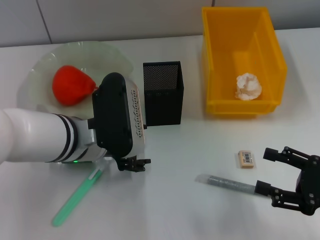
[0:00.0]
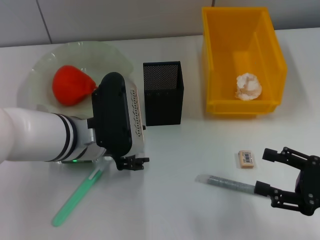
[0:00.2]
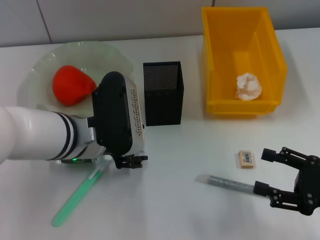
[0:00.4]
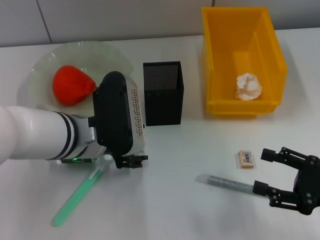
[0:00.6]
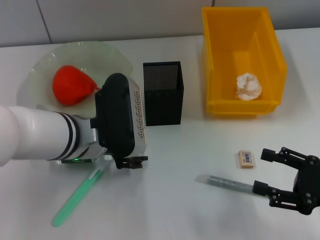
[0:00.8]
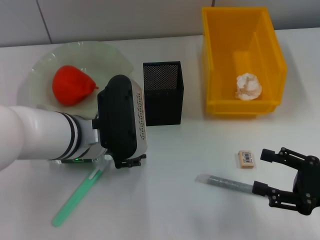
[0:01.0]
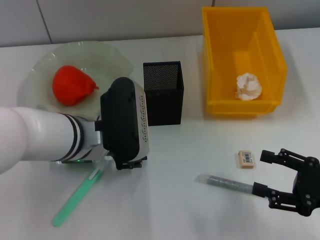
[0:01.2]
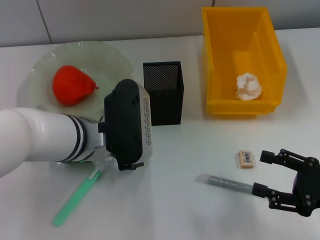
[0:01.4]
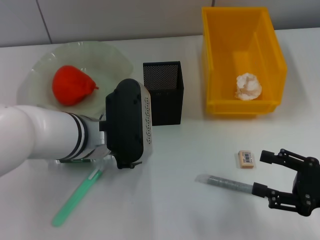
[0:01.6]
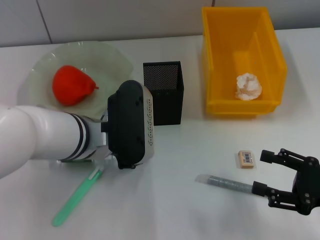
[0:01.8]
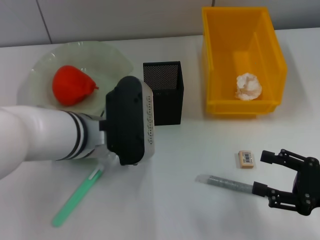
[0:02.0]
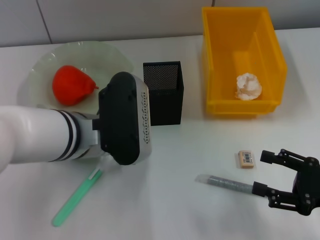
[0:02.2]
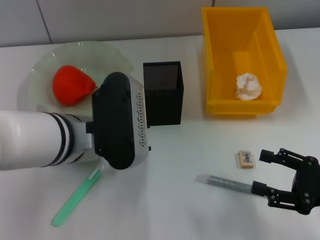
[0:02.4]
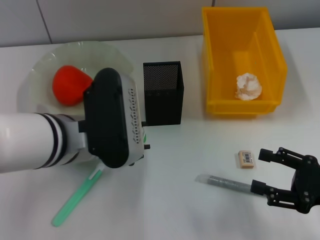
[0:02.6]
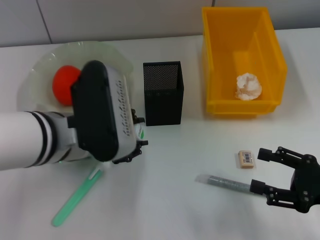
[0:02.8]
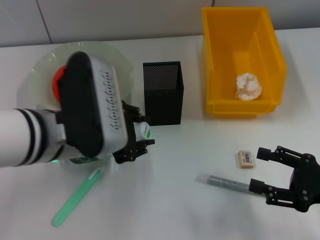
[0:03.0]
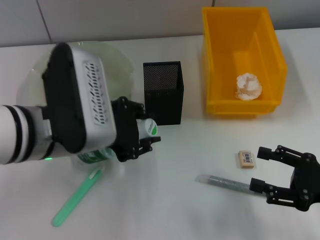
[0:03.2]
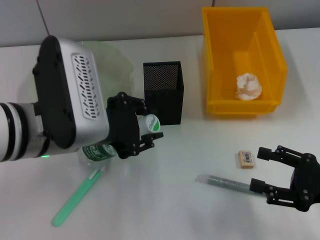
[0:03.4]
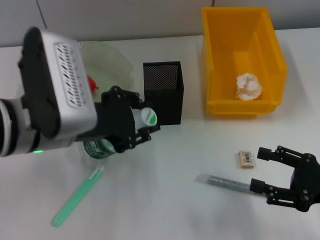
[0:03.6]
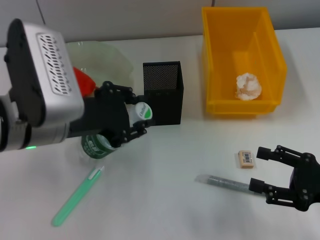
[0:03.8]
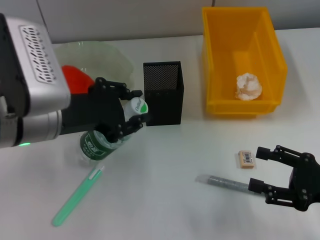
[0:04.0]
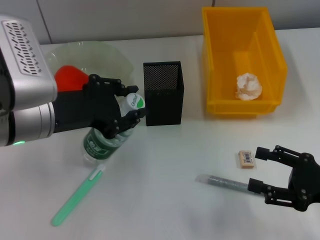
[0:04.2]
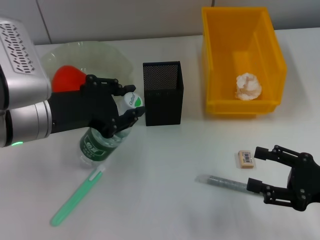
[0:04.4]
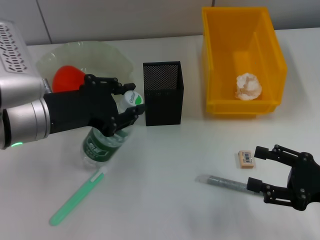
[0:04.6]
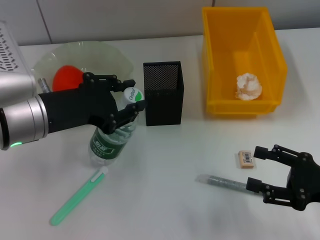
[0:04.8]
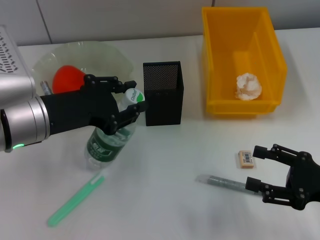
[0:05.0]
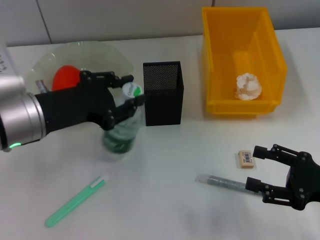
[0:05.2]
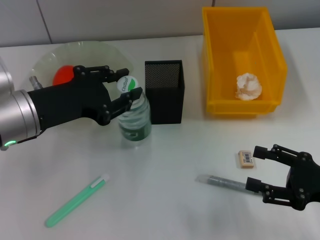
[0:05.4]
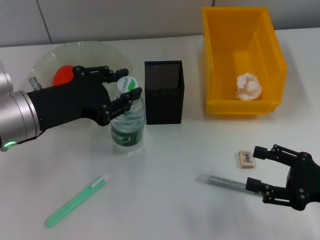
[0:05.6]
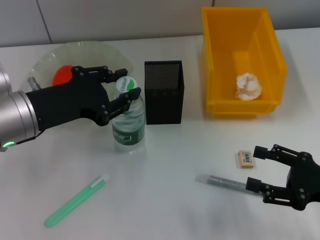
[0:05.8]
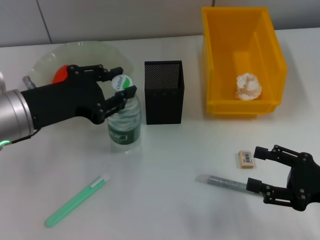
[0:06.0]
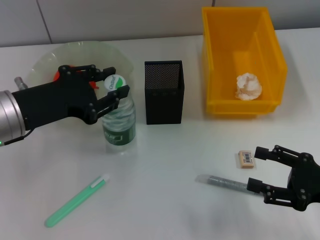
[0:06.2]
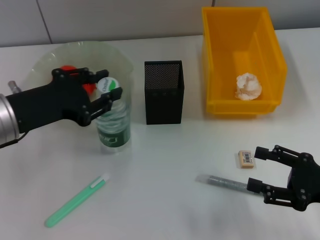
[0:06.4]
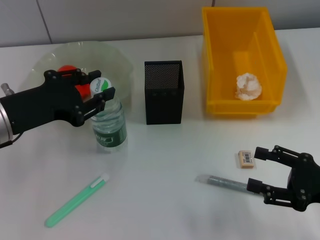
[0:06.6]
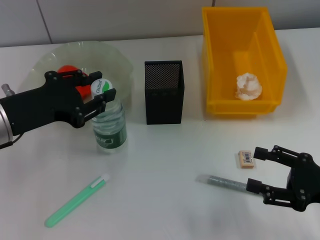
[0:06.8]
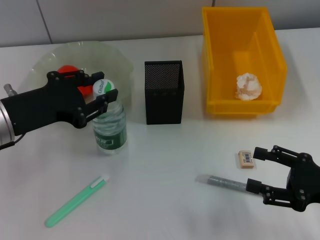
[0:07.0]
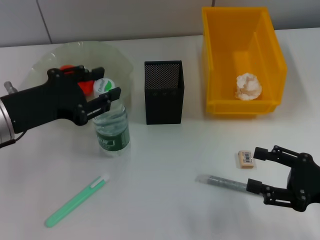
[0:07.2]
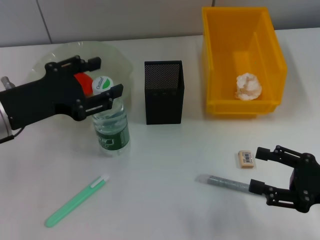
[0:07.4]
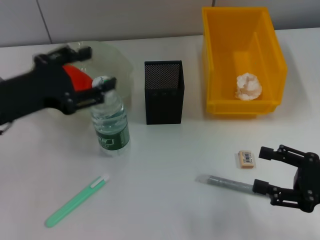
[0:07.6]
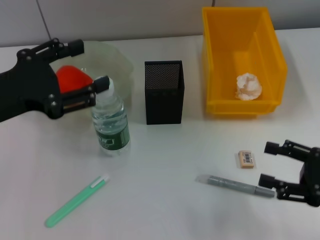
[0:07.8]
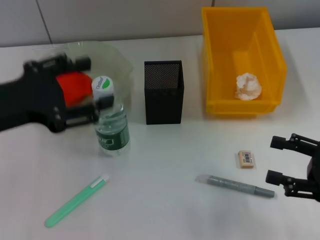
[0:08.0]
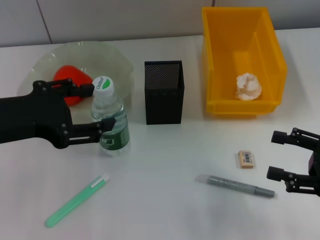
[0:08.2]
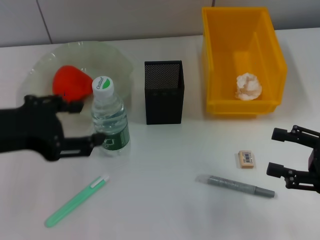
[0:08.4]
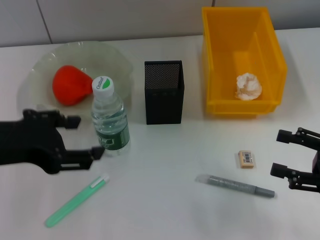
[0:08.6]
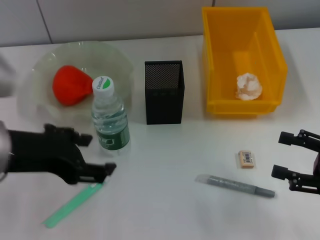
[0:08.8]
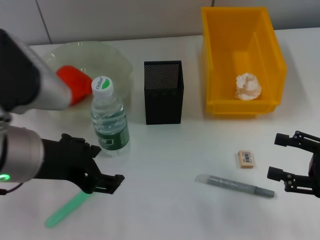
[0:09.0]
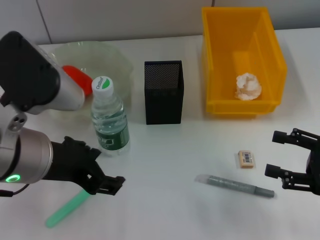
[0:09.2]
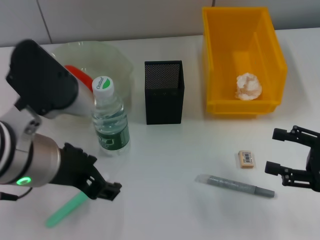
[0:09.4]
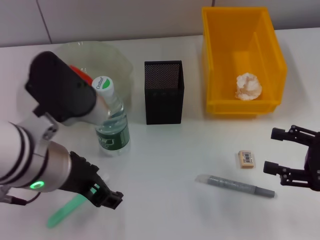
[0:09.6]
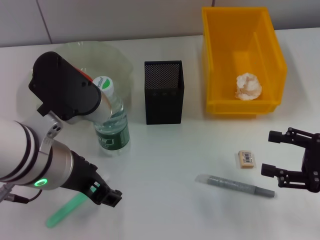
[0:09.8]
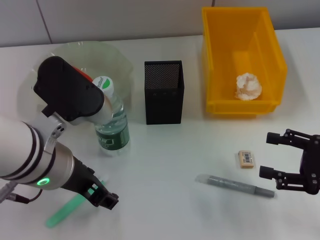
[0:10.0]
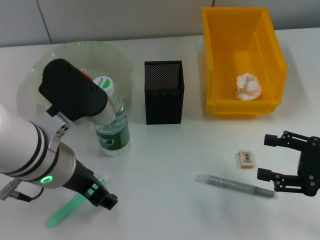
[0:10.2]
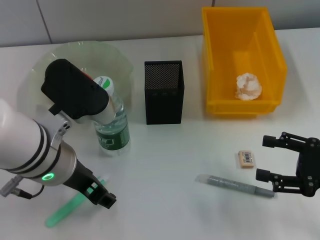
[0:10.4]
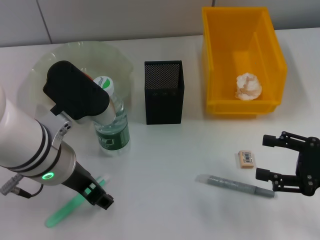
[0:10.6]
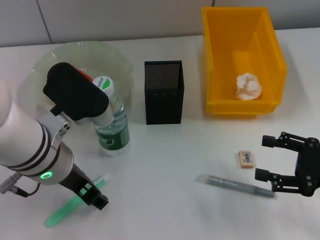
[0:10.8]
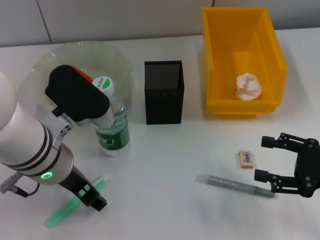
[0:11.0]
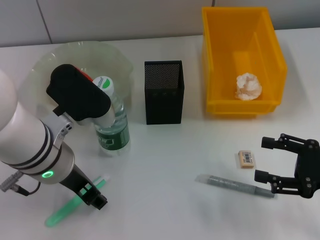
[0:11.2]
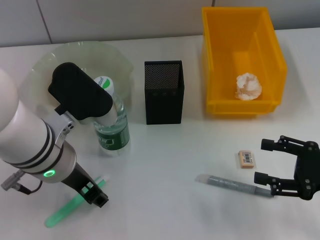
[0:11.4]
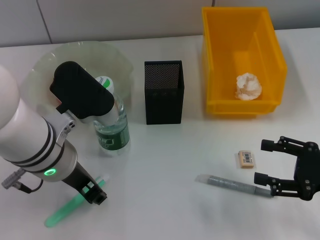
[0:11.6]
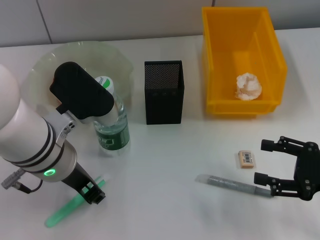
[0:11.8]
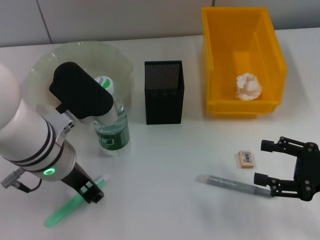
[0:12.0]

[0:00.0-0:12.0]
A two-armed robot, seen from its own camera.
Step, 0:01.8 to 0:07.2: Place the water bottle on the table with the left hand.
0:00.0 to 0:01.6: The left gripper closes its fingers.
0:01.6 to 0:03.0: The left gripper travels upward by approximately 5 cm.
0:03.0 to 0:04.4: The left gripper ends up about 5 cm from where it was.
0:04.4 to 0:06.0: The grippers make only small movements.
0:06.0 to 0:07.6: The left gripper opens.
0:07.6 to 0:09.0: The left gripper is displaced to the right by roughly 5 cm.
0:09.0 to 0:10.4: The left gripper shifts by some 5 cm.
0:10.4 to 0:12.0: The left gripper closes its fingers.

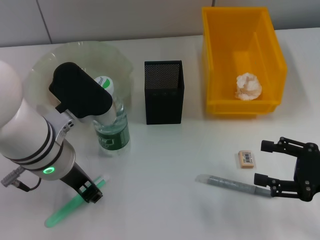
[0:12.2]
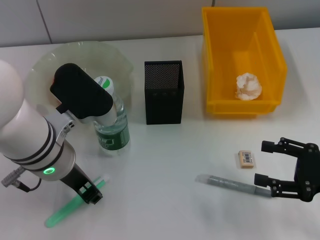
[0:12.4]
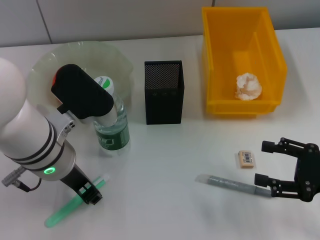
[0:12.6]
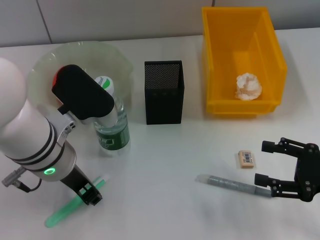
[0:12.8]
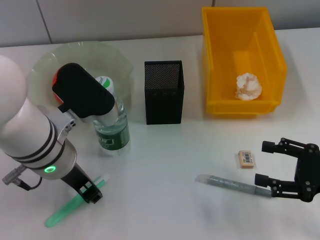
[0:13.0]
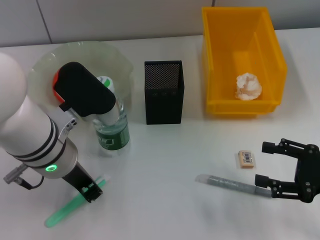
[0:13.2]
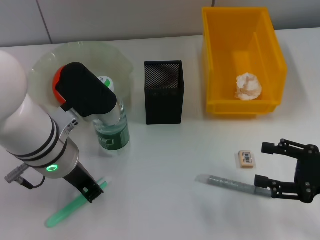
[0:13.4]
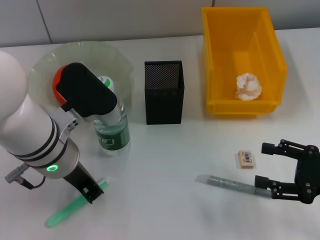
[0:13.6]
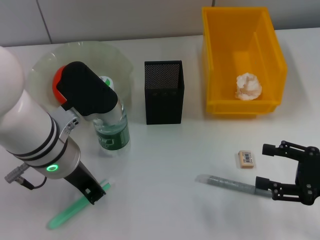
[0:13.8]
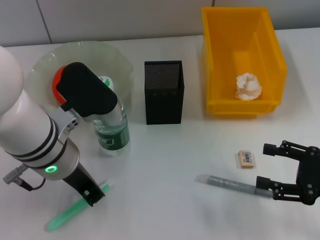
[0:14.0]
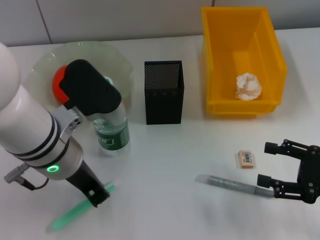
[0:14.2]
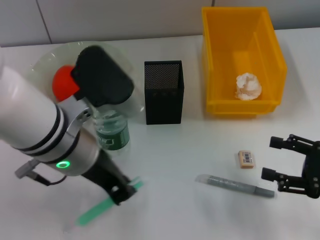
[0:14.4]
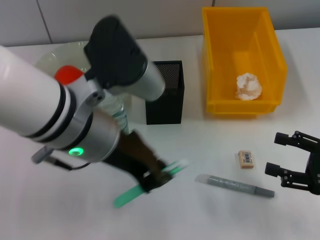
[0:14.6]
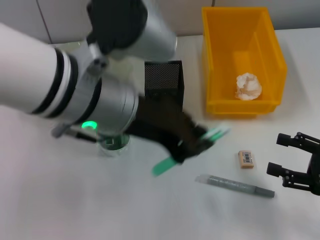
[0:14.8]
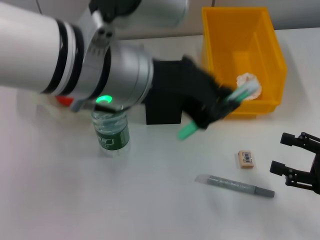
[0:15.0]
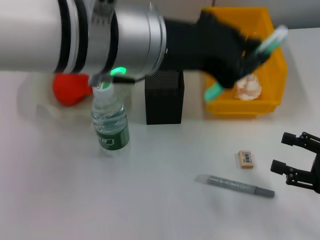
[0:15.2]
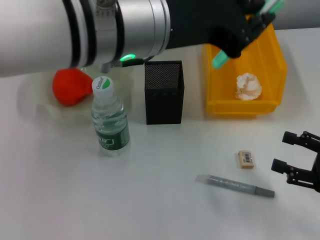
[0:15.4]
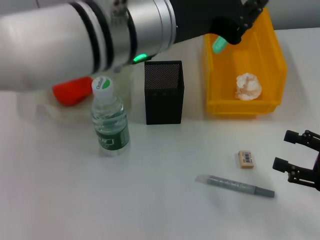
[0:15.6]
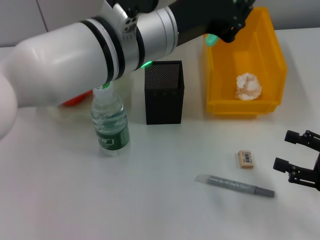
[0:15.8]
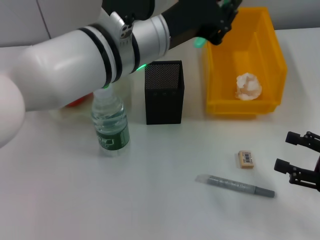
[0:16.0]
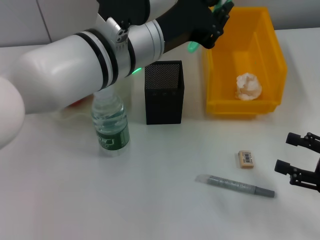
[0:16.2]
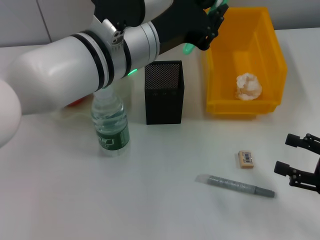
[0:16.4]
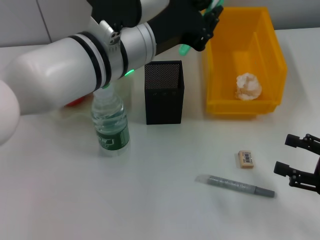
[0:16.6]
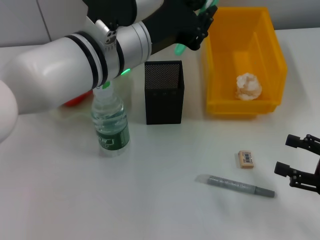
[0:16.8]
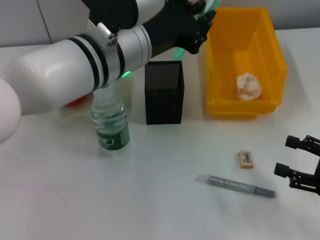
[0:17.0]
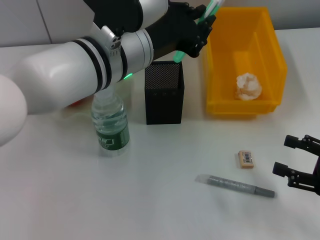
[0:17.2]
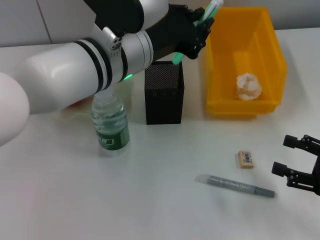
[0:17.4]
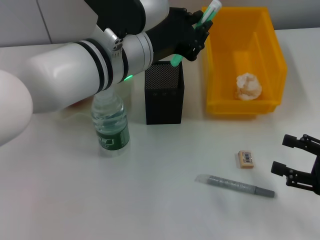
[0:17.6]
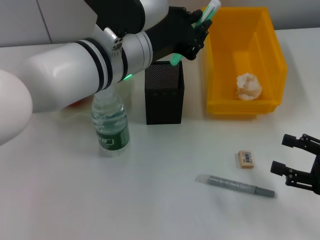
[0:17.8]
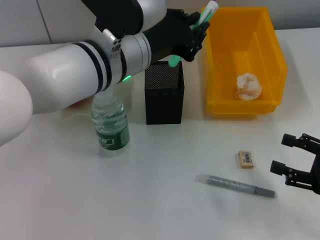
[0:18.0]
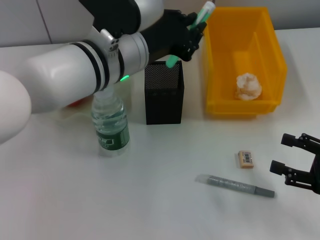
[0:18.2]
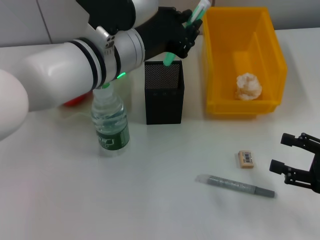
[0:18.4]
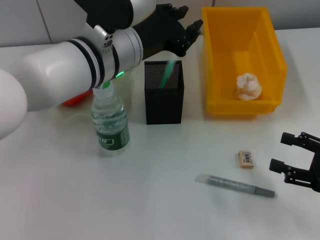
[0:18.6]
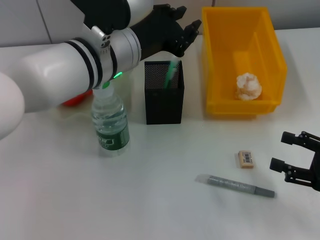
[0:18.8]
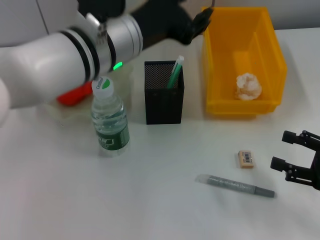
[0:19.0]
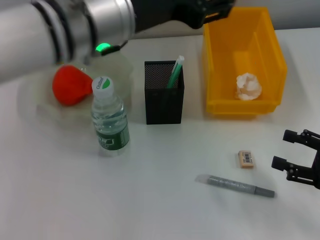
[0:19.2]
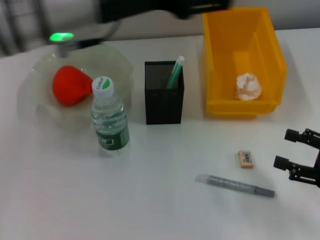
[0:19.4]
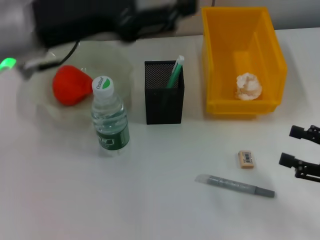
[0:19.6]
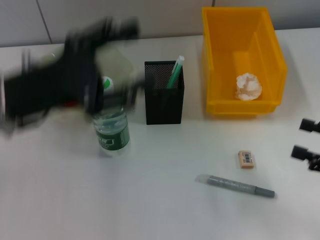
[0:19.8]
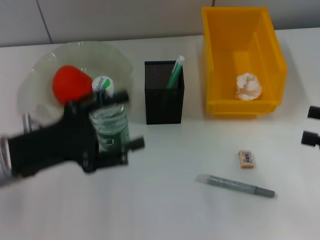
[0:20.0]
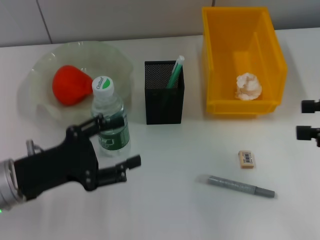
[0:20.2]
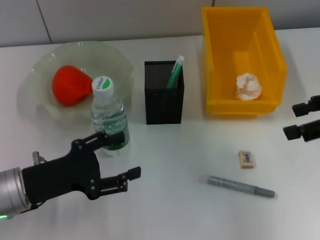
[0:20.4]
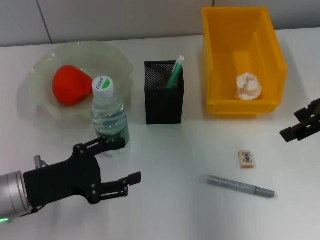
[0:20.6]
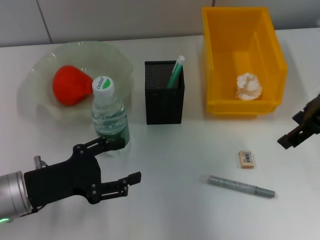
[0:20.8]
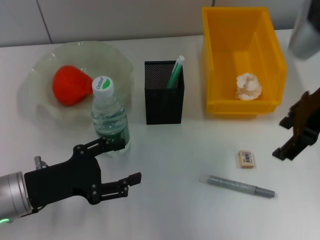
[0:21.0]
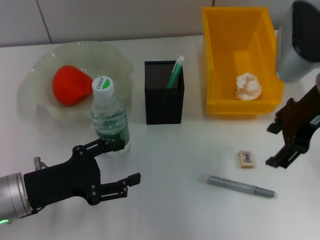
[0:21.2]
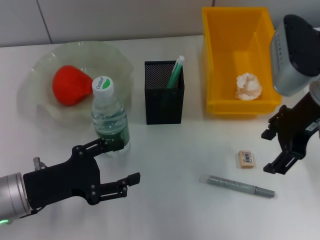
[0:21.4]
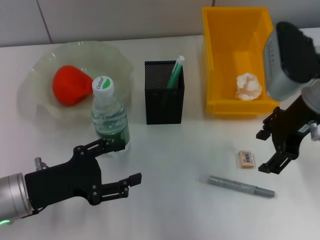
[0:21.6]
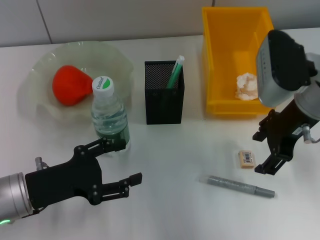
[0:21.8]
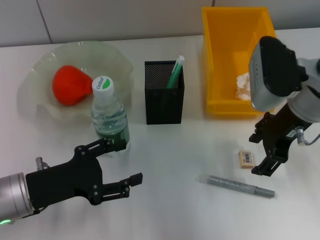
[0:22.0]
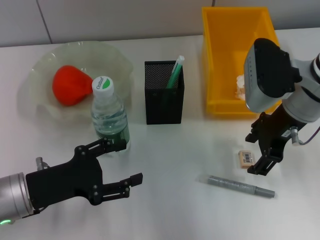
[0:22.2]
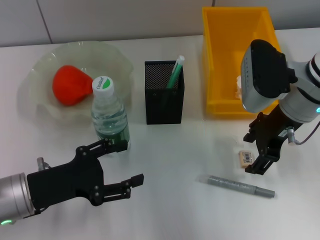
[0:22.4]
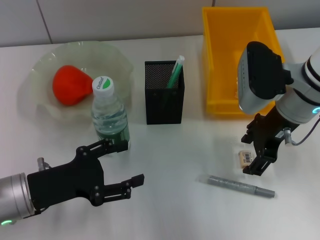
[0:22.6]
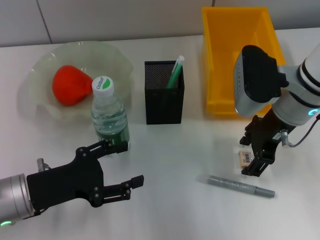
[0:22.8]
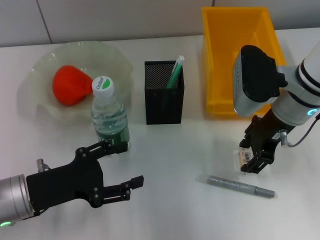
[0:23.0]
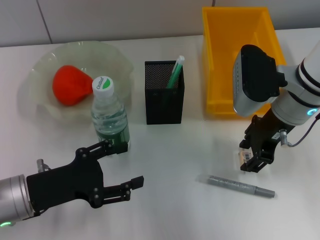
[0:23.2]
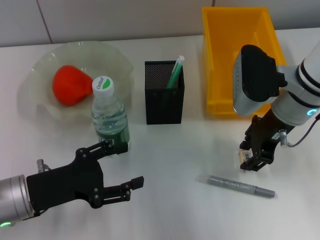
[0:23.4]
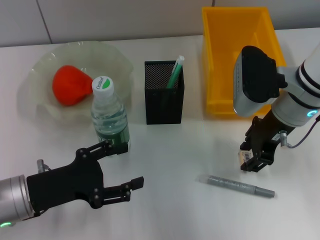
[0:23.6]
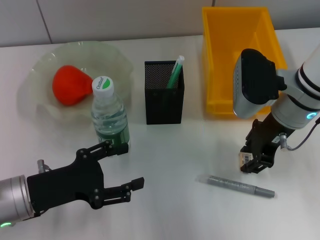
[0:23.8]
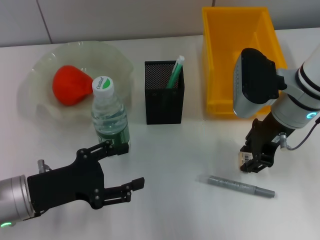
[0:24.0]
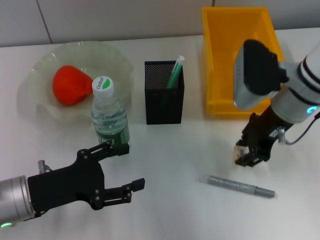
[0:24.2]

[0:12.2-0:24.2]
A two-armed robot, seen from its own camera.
Step, 0:13.8 to 0:18.8: Place the blue utility knife into the pen holder with the left hand.
Step, 0:19.0 to 0:23.8: Grab the eraser with the right hand.
0:12.2 to 0:13.8: The left gripper closes its fingers.
0:13.8 to 0:15.2: The left gripper shifts approximately 15 cm upward and to the right.
0:15.2 to 0:16.6: The left gripper is displaced downward by some 5 cm.
0:16.6 to 0:18.2: The grippers stay close to where they were, moving slightly.
0:18.2 to 0:19.8: The left gripper goes roughly 15 cm to the left, and opens.
0:19.8 to 0:21.2: The right gripper heads to the left, forward and upward, covering some 25 cm. The left gripper shifts approximately 15 cm downward and backward.
0:21.2 to 0:22.6: The right gripper heads downward, covering about 5 cm.
0:22.6 to 0:24.2: The right gripper closes its fingers.
